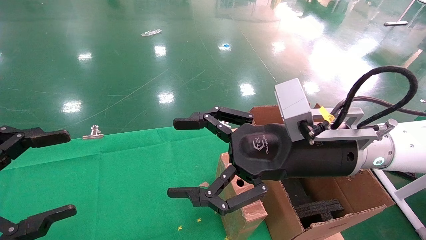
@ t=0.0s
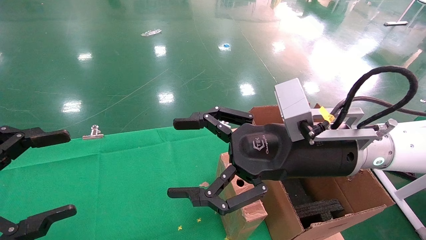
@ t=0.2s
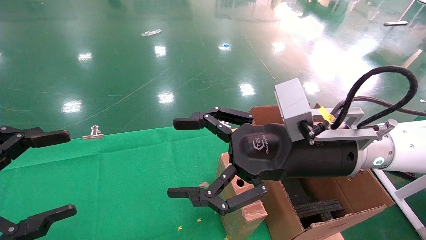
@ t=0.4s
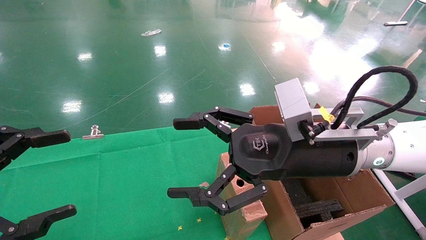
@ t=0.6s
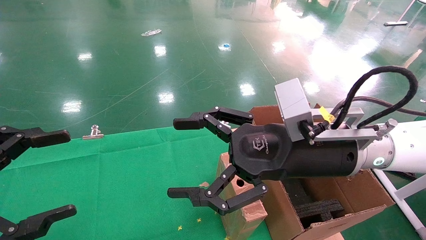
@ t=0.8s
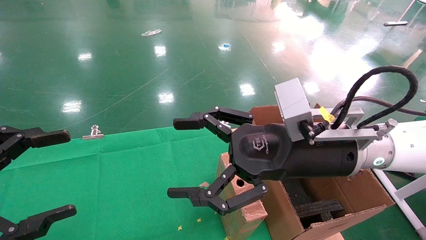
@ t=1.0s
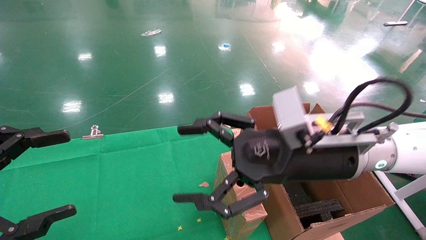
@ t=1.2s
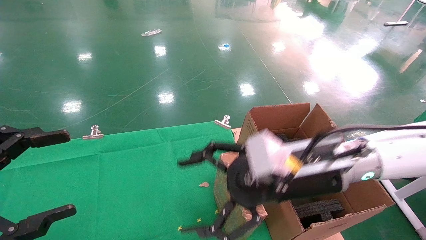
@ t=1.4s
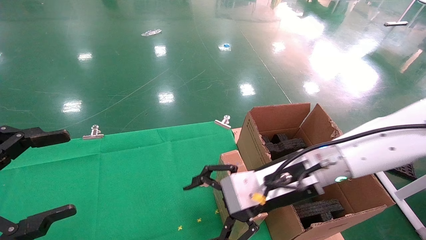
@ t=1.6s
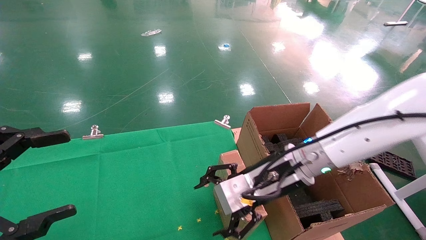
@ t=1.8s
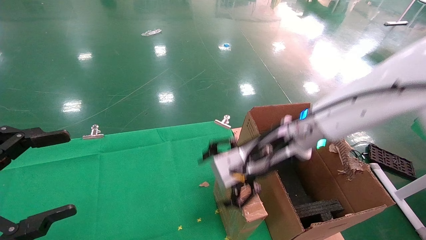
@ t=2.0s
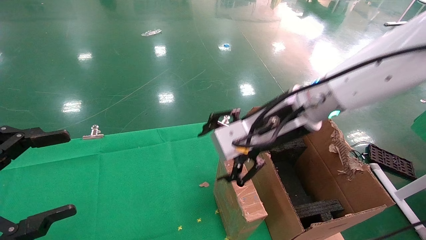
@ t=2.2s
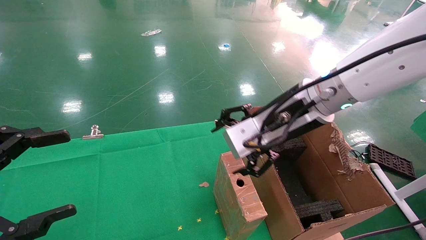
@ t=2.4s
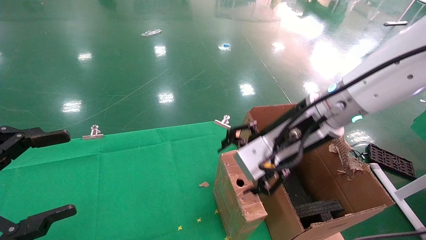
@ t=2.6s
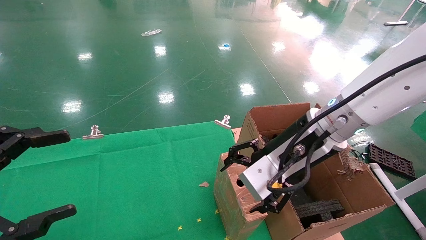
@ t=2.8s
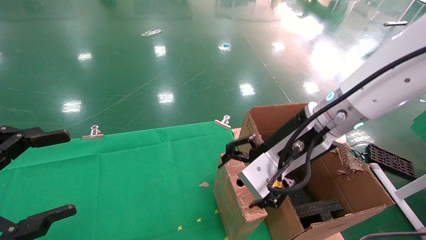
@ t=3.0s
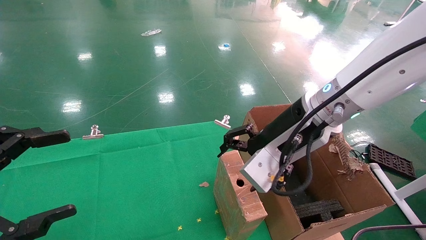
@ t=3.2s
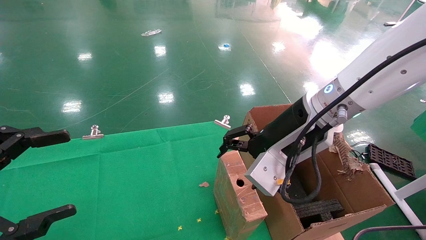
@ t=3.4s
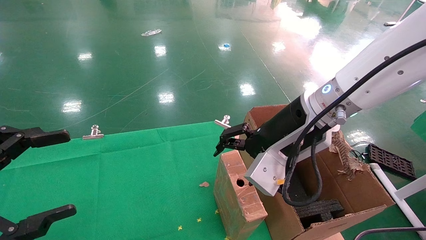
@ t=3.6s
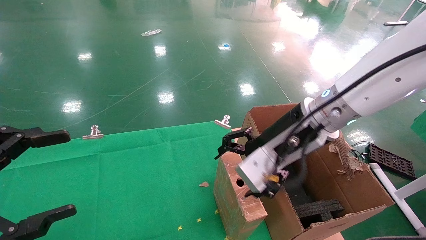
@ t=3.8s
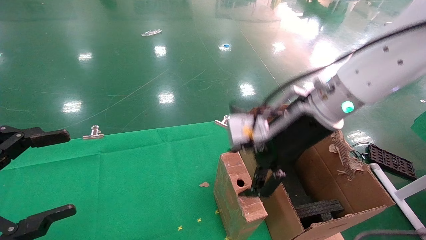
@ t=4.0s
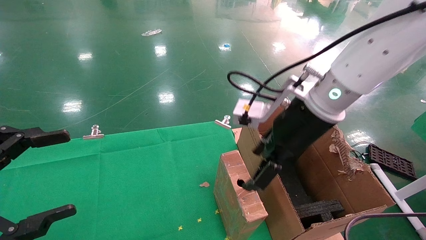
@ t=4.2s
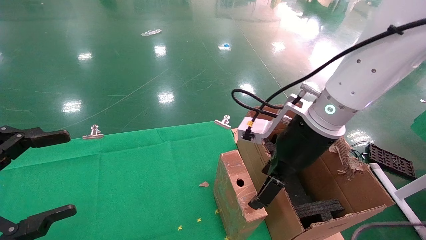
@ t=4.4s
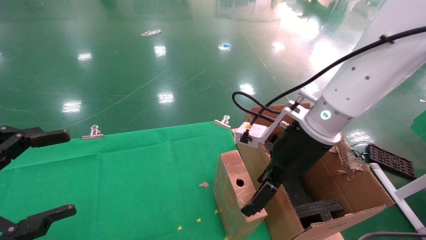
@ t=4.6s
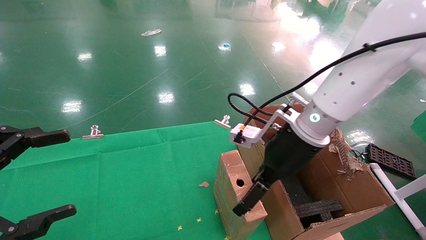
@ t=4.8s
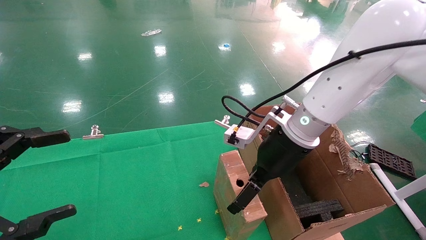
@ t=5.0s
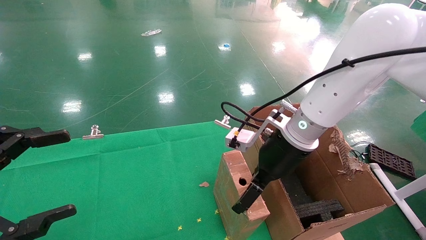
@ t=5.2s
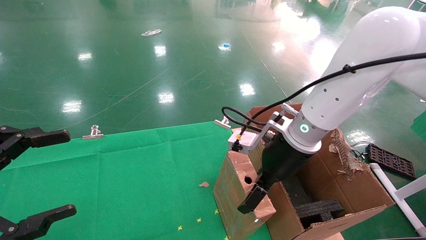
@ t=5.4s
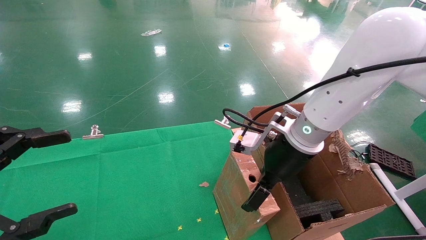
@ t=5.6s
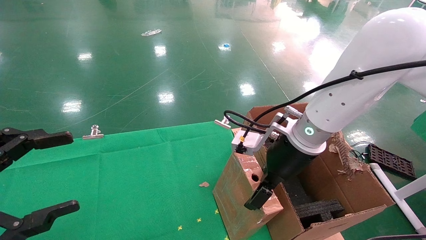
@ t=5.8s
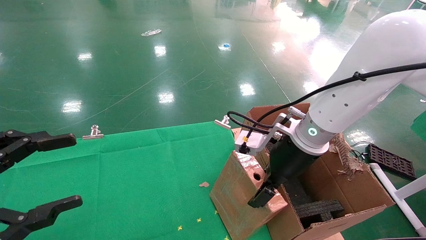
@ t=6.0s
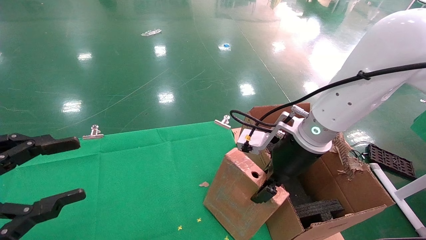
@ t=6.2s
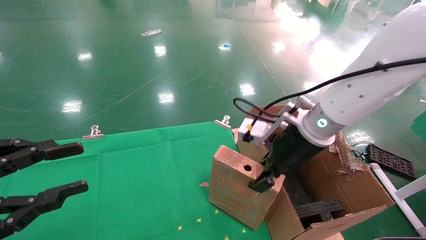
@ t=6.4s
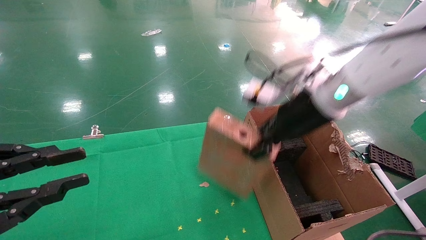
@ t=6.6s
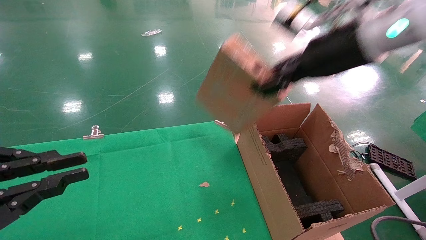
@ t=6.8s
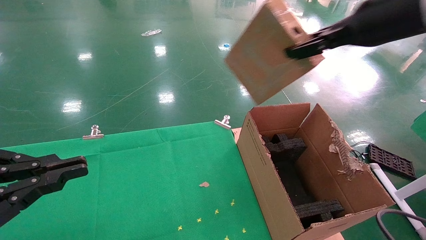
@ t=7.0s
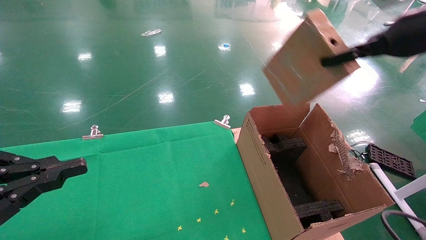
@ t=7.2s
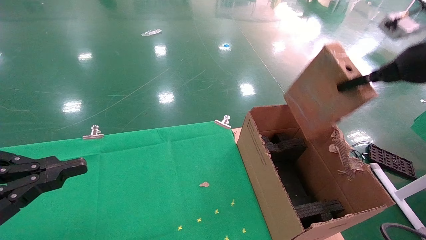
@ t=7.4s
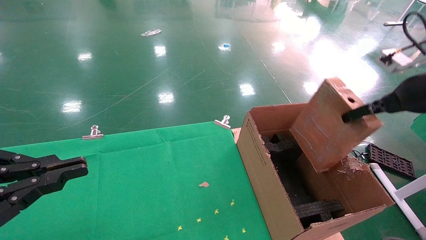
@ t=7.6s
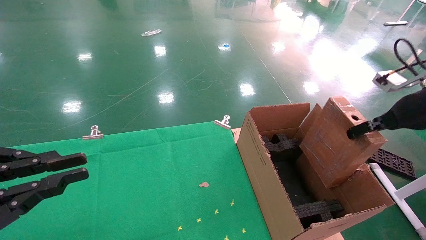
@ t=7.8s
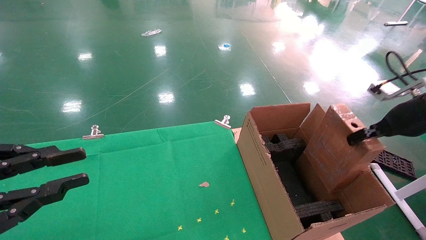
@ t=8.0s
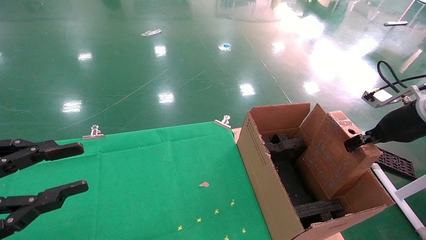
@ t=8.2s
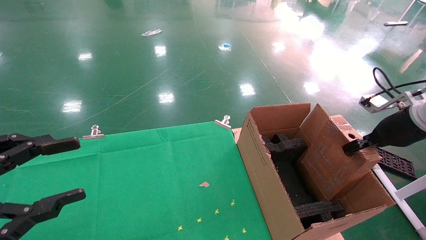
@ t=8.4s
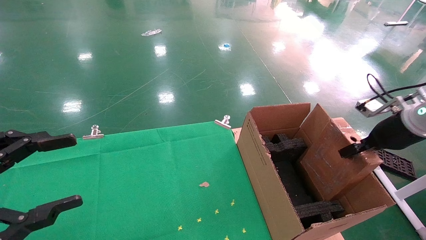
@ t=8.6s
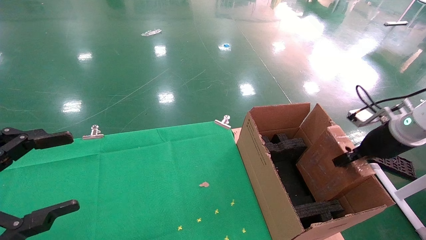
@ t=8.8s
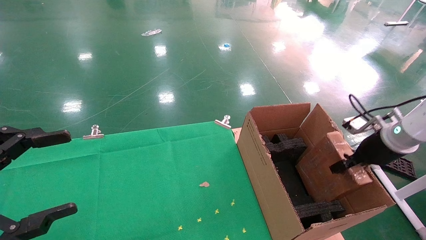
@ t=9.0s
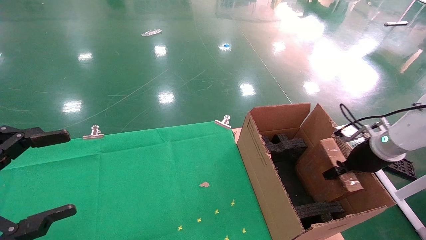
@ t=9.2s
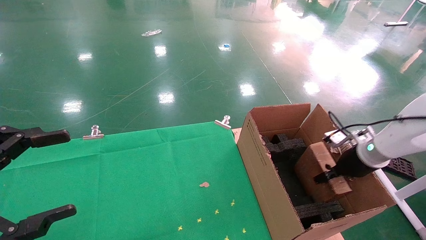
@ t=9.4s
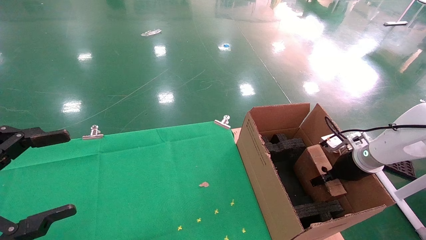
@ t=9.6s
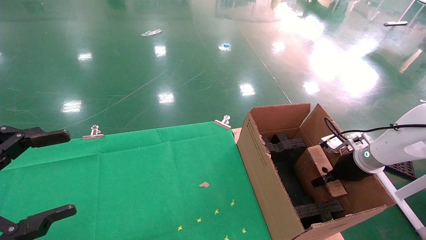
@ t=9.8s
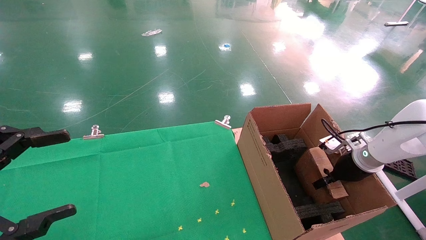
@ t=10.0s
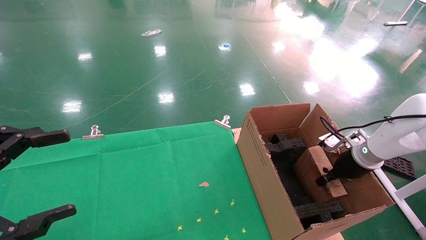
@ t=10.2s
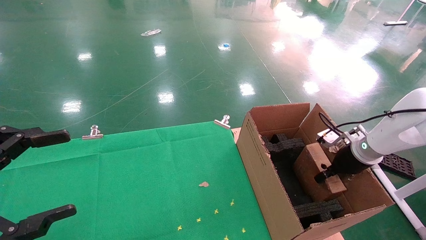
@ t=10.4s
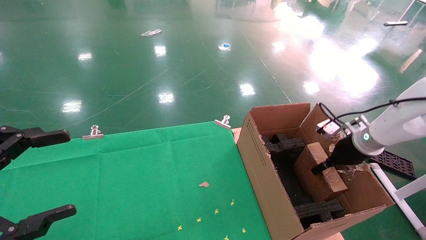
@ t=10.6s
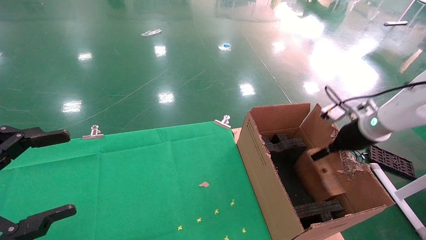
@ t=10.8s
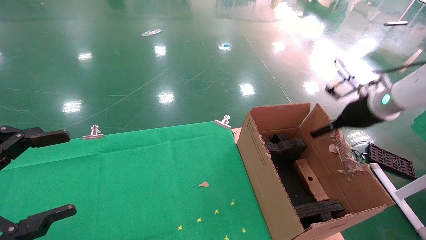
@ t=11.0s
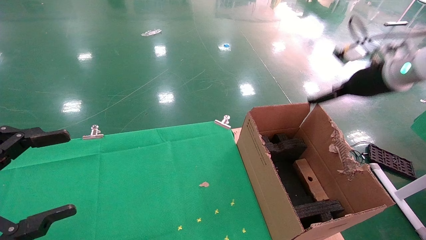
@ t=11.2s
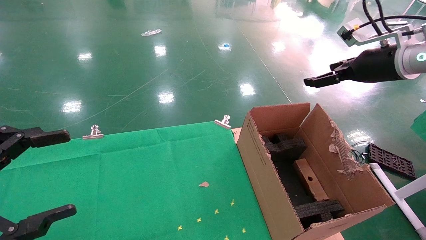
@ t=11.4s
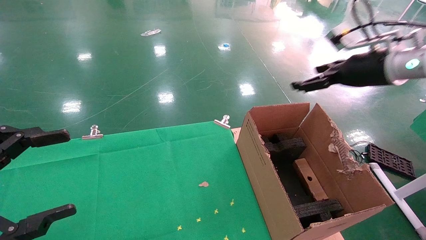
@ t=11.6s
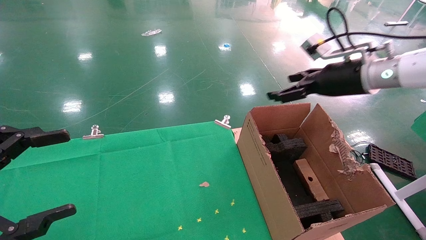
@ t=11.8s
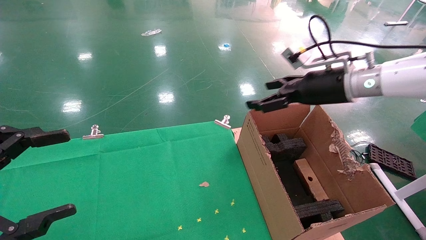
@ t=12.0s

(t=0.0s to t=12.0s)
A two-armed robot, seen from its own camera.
Task of the whole recording: using a robotic arm to pick up a cardboard box and palace it the carton.
Step, t=1.2s - t=6.2s: Pick up the mouse and the power cord paper box.
Step, t=6.4s - t=11.0s: Place the mouse and the power cord paper box into the container.
t=0.0s - t=1.6s: The right gripper travels downward by approximately 5 cm.
t=1.6s - t=3.0s: The right gripper moves upward, approximately 10 cm.
t=4.4s - t=6.0s: The grippers make only small movements.
t=6.0s - t=7.6s: The right gripper shifts roughly 25 cm to the right, and closes its fingers. Meanwhile the left gripper closes.
t=7.6s - t=9.0s: The left gripper opens its fingers. Meanwhile the right gripper goes some 15 cm downward.
t=9.0s - t=10.4s: The right gripper shifts by about 5 cm.
t=10.4s - t=12.0s: The right gripper heads upward and to the left, covering roughly 20 cm, and opens its fingers.

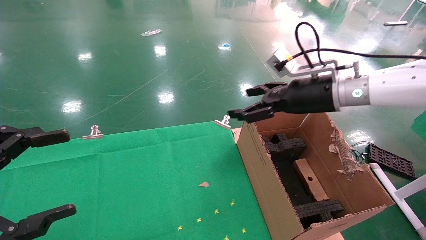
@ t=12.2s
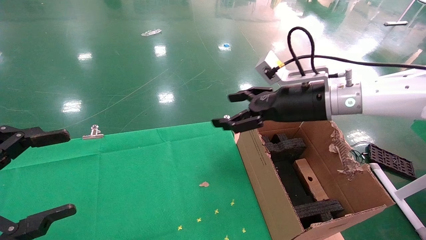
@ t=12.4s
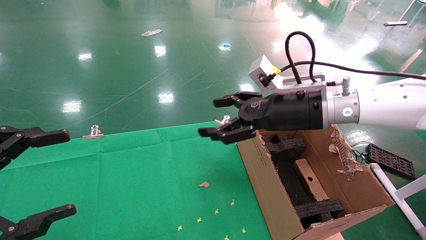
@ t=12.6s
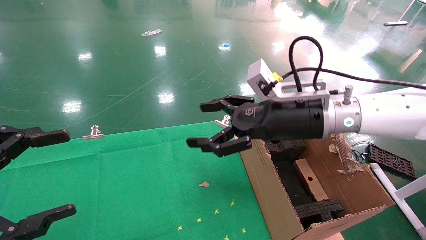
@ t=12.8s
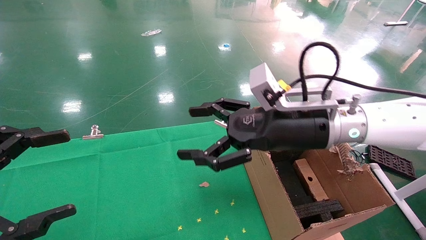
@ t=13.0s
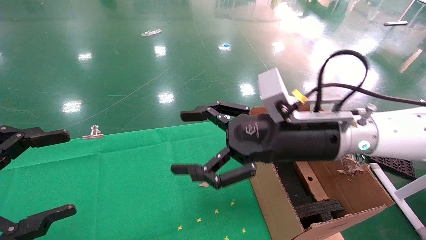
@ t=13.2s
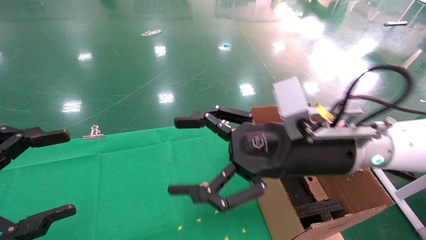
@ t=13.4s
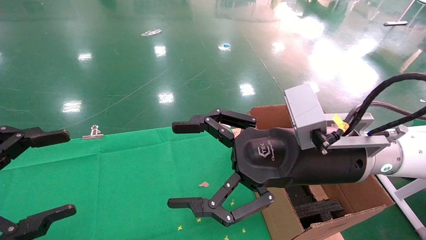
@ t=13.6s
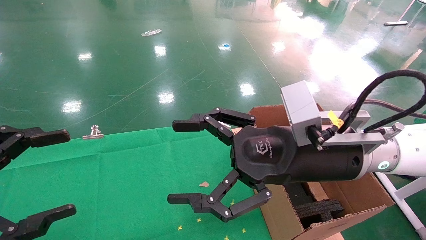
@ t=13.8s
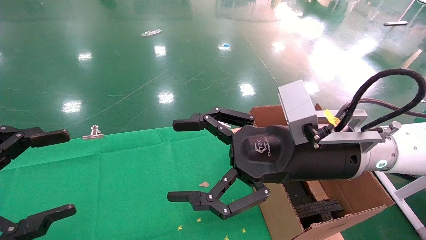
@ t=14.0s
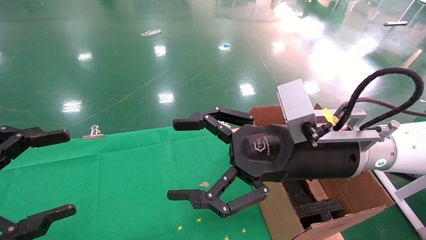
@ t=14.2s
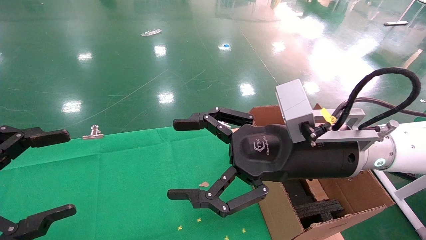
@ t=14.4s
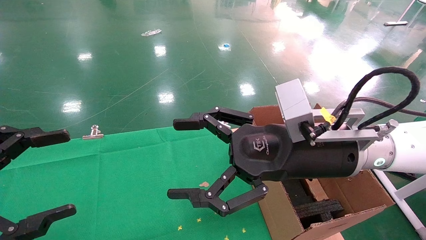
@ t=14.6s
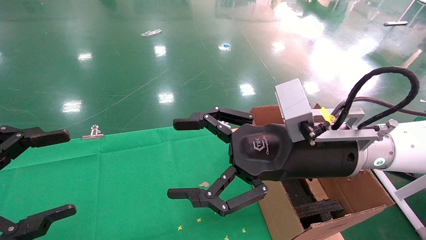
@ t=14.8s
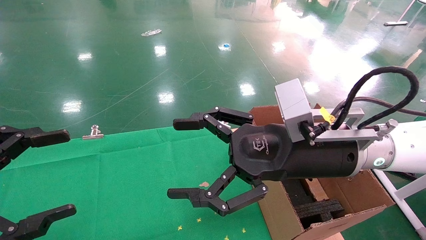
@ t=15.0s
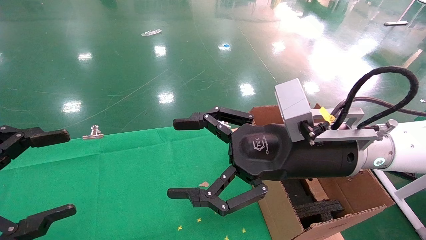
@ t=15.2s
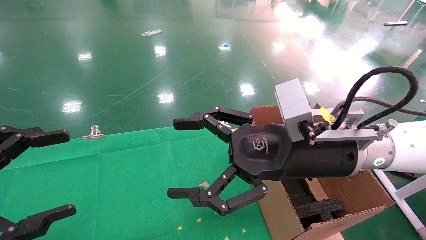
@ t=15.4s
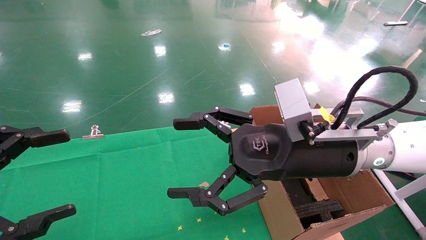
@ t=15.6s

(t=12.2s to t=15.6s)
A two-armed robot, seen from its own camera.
Task of the whole recording: using a robotic arm to pick up a cardboard box and palace it the carton.
t=12.2s - t=13.8s: The right gripper is displaced backward and to the left by about 15 cm.
t=13.8s - t=15.6s: The two grippers keep their place.
